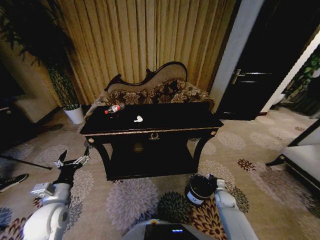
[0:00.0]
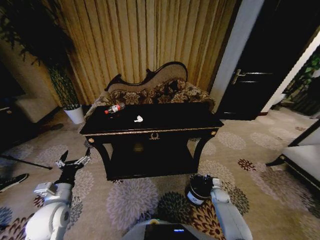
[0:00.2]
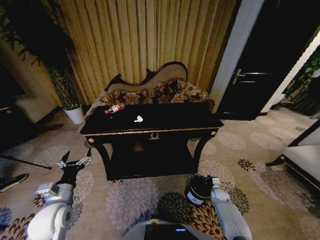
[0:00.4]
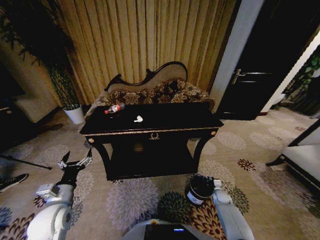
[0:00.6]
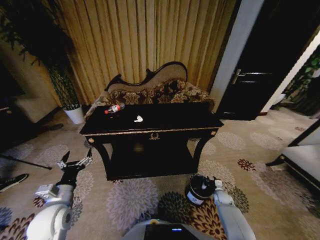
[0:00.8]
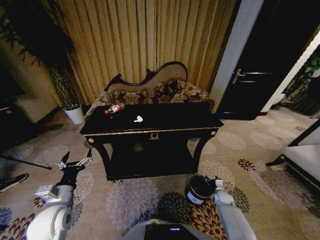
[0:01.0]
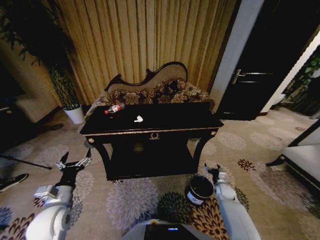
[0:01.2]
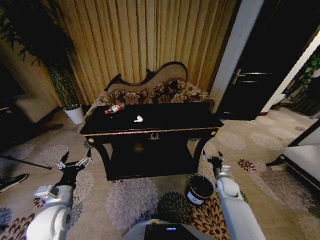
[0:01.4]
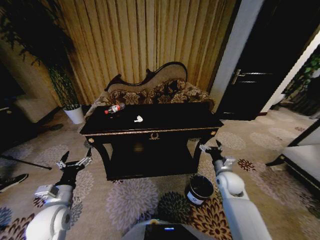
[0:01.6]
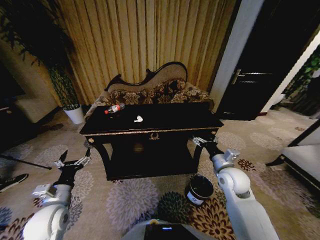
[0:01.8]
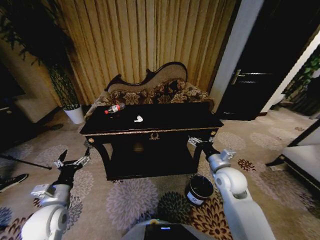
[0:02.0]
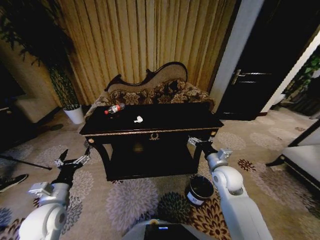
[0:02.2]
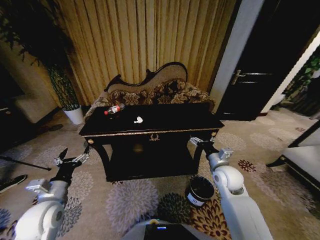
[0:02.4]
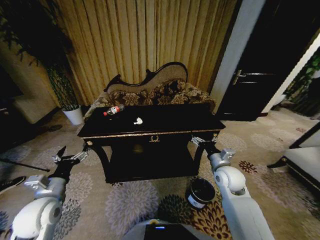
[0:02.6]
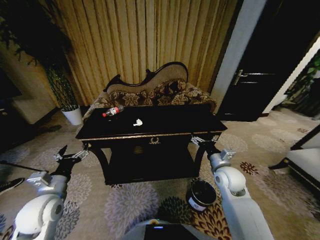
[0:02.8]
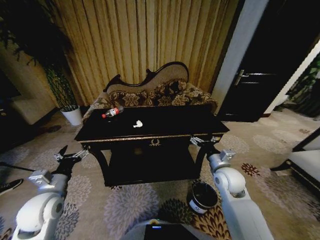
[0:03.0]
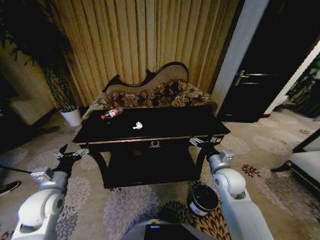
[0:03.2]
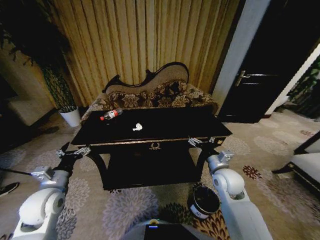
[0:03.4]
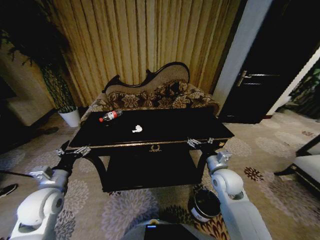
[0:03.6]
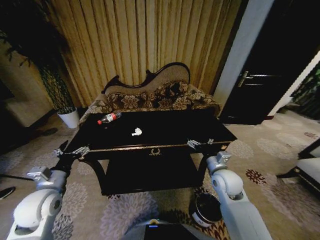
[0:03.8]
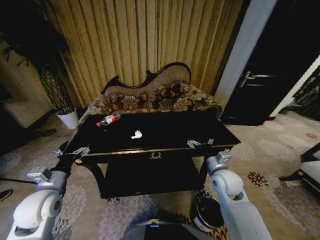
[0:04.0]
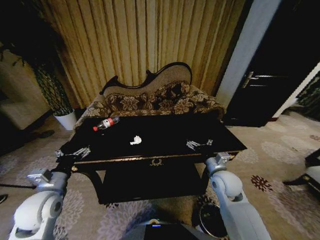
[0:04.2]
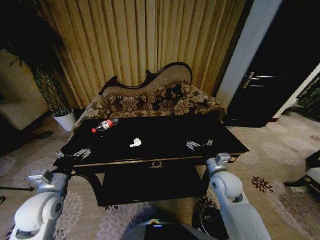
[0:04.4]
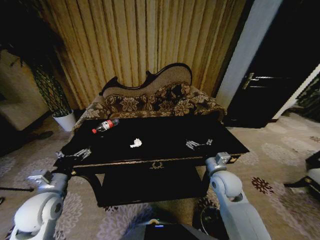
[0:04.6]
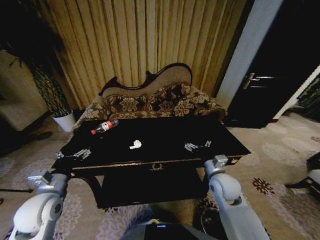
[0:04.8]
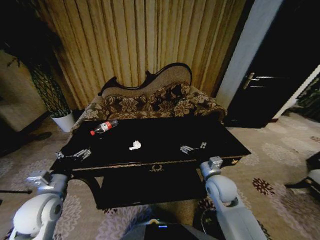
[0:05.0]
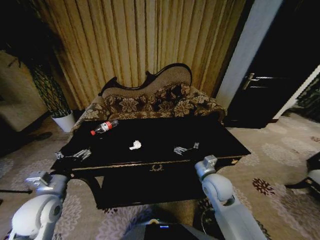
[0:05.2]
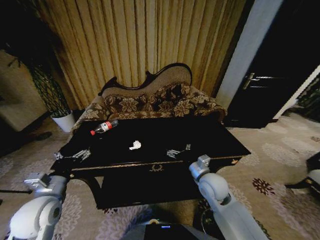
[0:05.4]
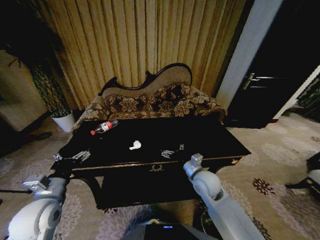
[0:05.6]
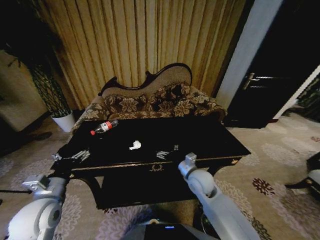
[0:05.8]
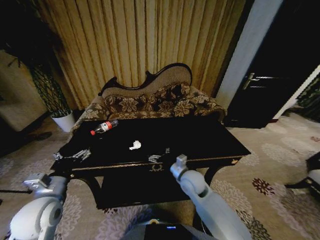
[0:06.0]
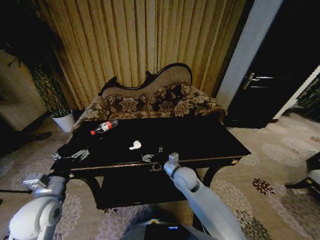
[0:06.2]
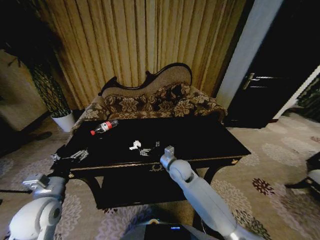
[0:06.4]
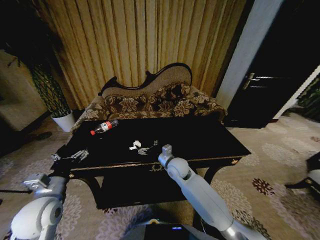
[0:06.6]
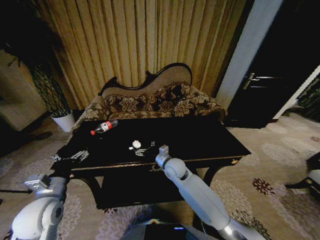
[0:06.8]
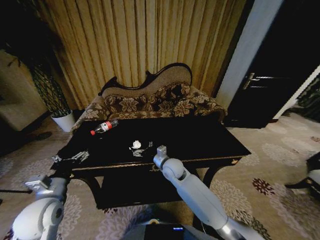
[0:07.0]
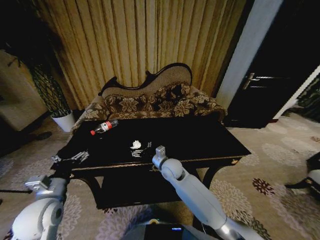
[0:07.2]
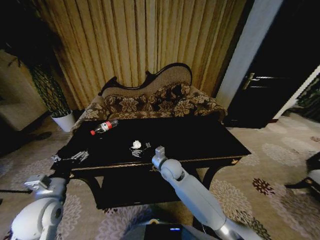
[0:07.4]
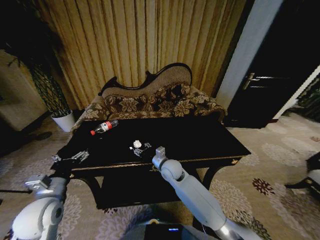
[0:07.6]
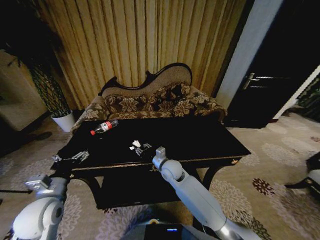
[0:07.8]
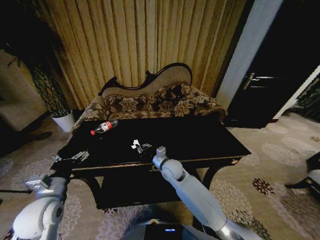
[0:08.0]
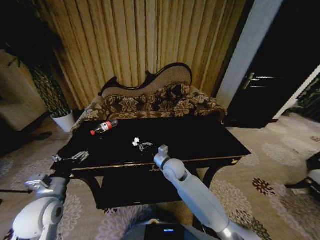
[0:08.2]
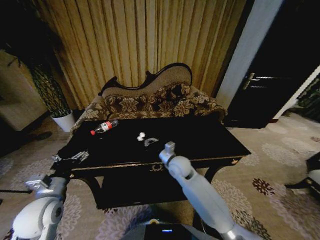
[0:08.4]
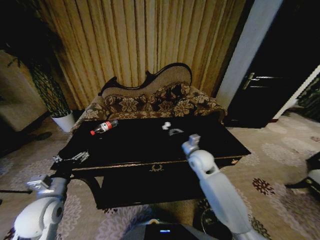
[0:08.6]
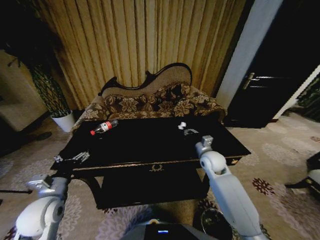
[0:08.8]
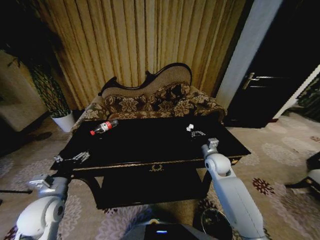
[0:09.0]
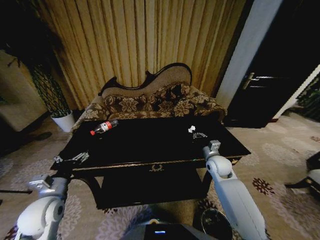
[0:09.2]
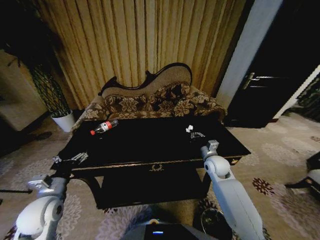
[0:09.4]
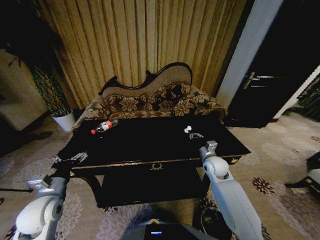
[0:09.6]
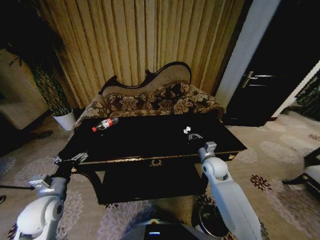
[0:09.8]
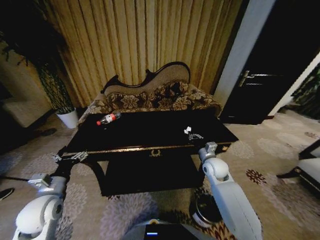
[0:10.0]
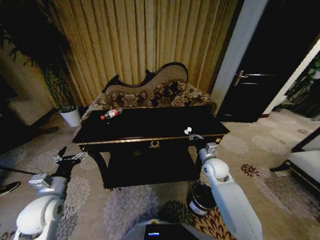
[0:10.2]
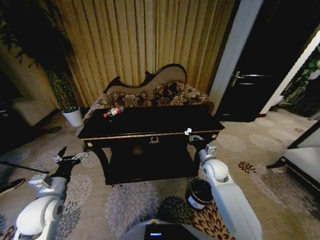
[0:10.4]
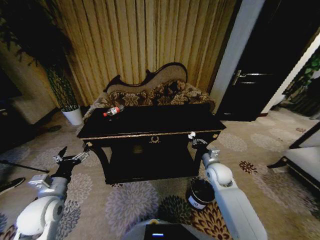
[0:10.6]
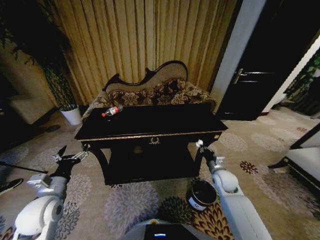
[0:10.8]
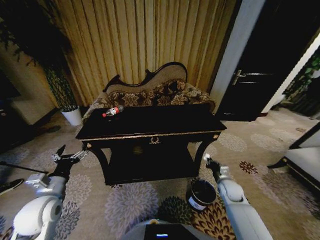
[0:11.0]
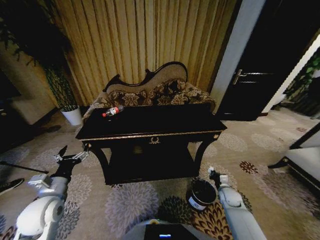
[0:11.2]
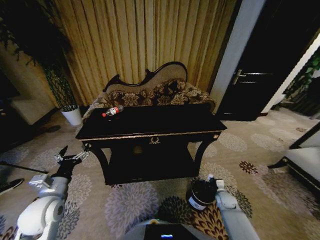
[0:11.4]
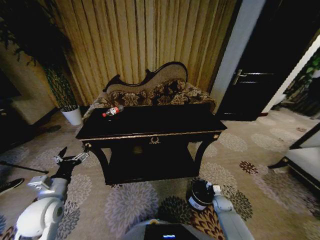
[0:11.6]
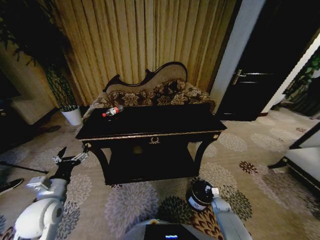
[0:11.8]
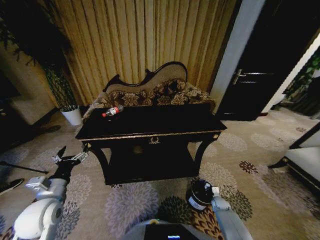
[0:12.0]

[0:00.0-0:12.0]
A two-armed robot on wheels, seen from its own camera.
Task of the whole recording: Move to the front of the table and place the trash on the table into the trash bin.
0:00.0 to 0:01.6: The right gripper goes about 20 cm upward, and opens its fingers.
0:01.6 to 0:03.0: The left gripper shifts by approximately 5 cm. Meanwhile the right gripper is displaced upward by about 5 cm.
0:04.4 to 0:06.0: The right gripper heads to the left, covering about 10 cm.
0:06.0 to 0:07.6: The right gripper shifts approximately 10 cm to the left and forward.
0:07.6 to 0:09.0: The right gripper moves to the right, roughly 20 cm, and closes its fingers.
0:10.4 to 0:12.0: The right gripper moves downward and to the right, some 35 cm.

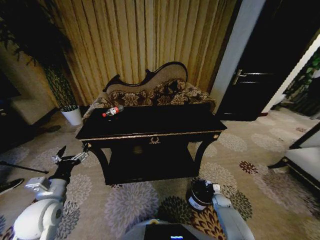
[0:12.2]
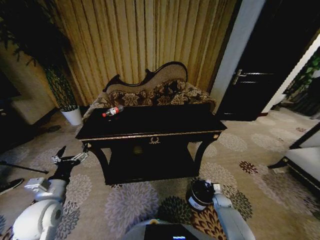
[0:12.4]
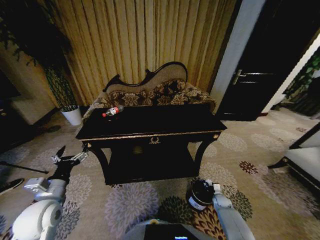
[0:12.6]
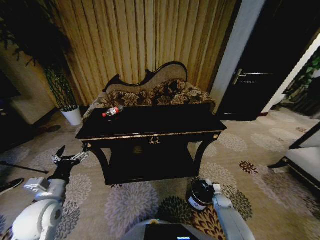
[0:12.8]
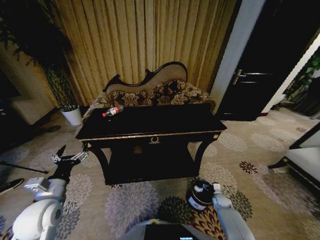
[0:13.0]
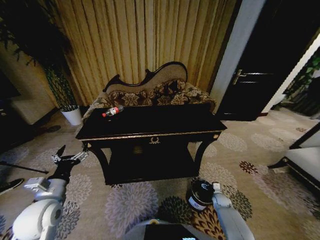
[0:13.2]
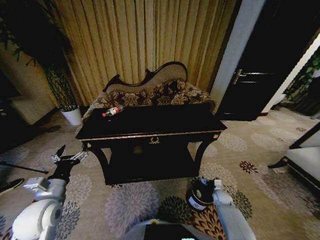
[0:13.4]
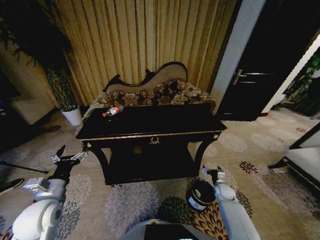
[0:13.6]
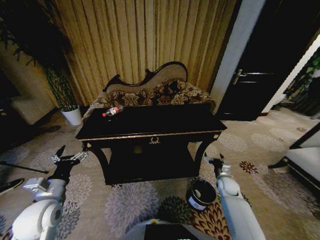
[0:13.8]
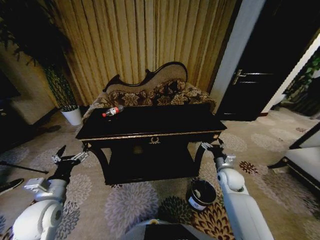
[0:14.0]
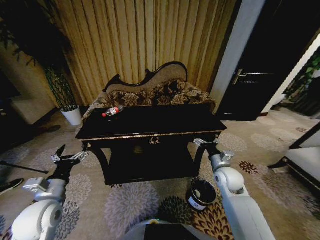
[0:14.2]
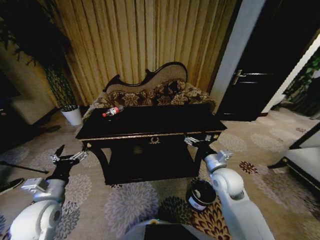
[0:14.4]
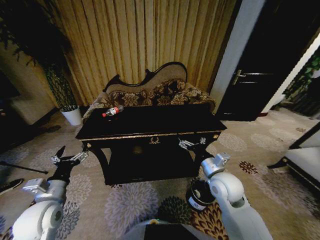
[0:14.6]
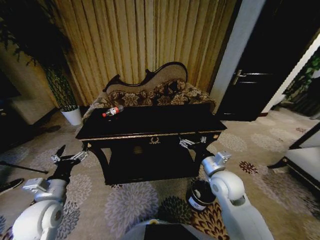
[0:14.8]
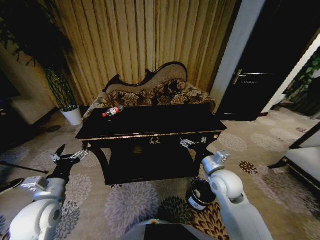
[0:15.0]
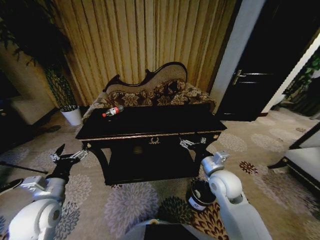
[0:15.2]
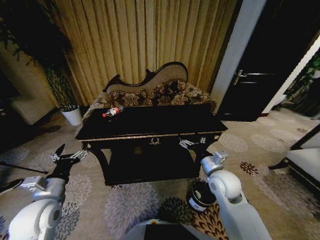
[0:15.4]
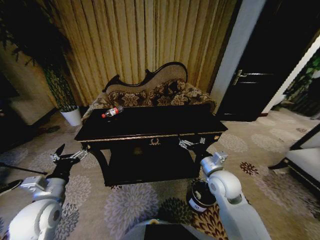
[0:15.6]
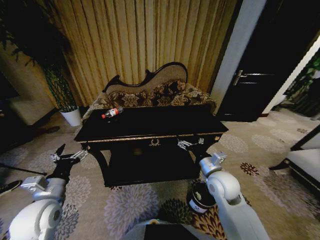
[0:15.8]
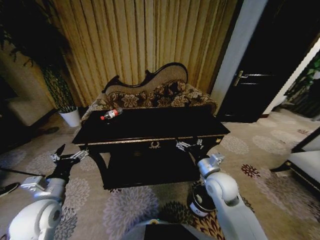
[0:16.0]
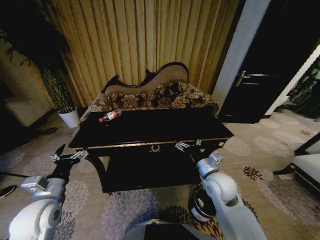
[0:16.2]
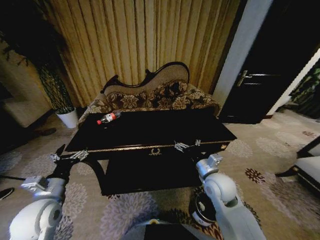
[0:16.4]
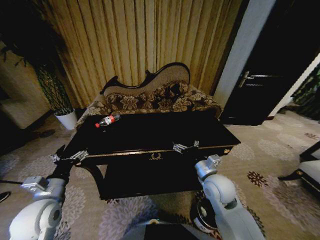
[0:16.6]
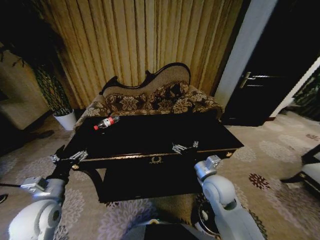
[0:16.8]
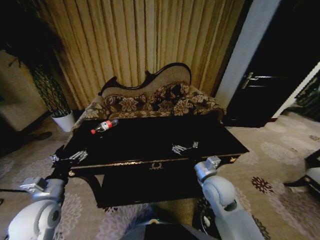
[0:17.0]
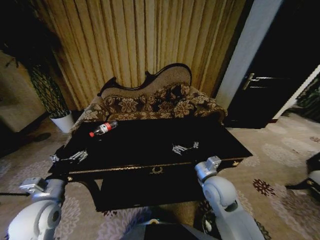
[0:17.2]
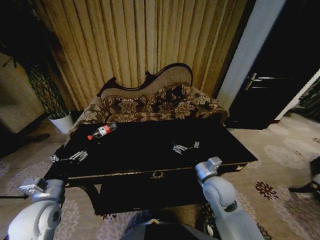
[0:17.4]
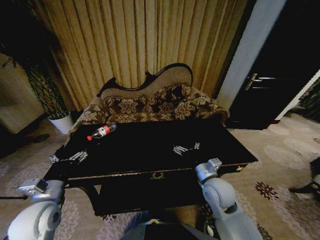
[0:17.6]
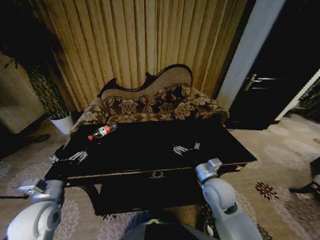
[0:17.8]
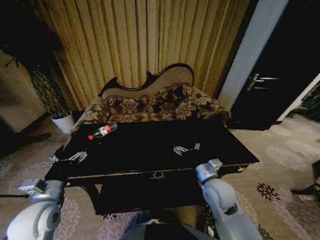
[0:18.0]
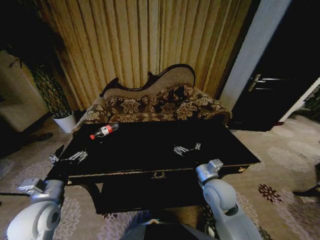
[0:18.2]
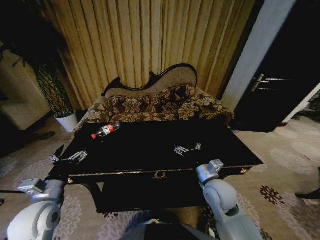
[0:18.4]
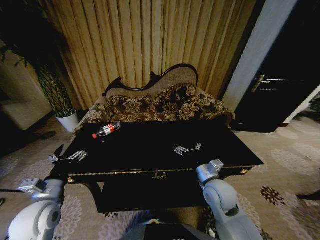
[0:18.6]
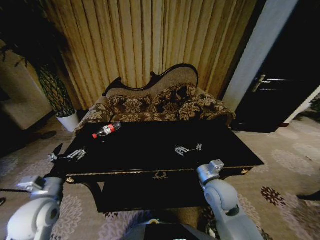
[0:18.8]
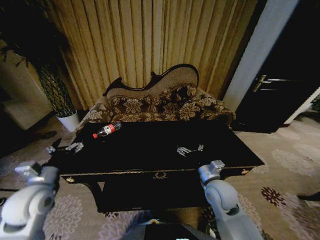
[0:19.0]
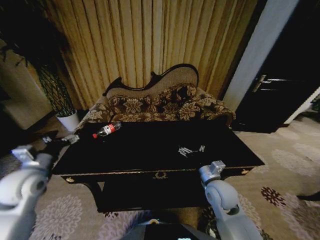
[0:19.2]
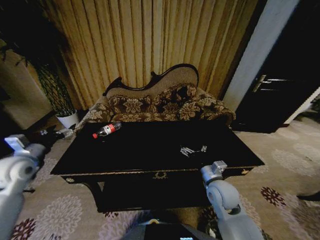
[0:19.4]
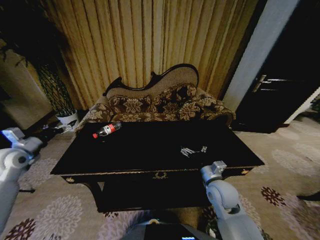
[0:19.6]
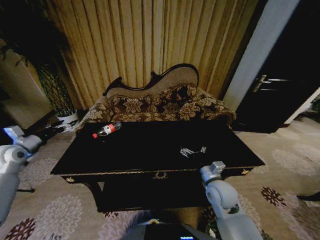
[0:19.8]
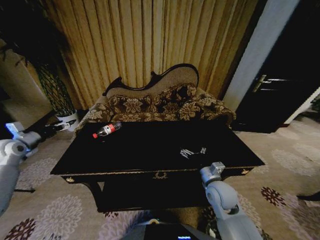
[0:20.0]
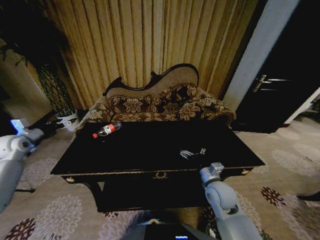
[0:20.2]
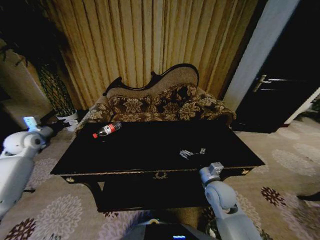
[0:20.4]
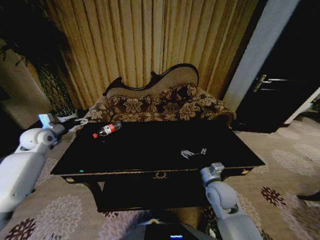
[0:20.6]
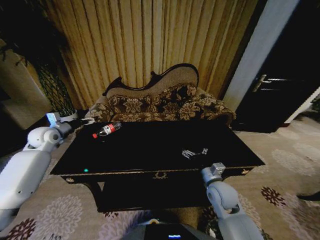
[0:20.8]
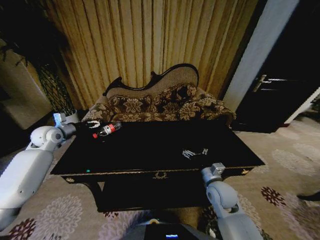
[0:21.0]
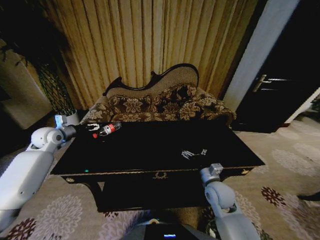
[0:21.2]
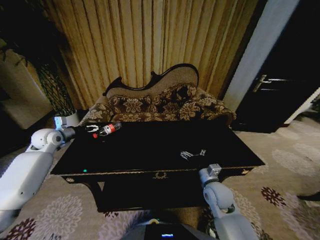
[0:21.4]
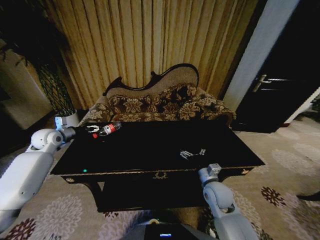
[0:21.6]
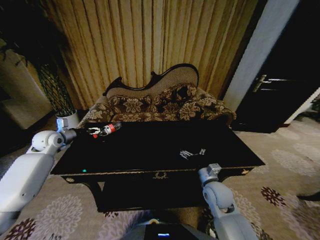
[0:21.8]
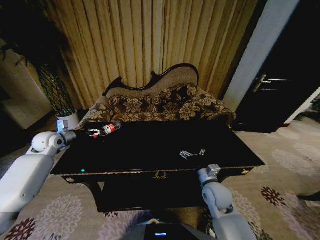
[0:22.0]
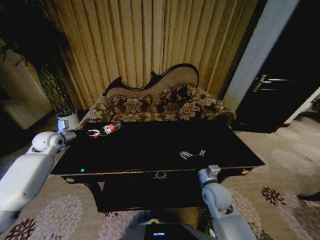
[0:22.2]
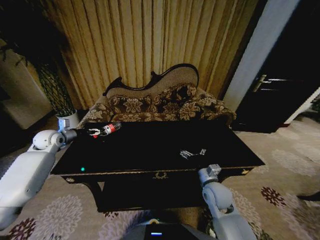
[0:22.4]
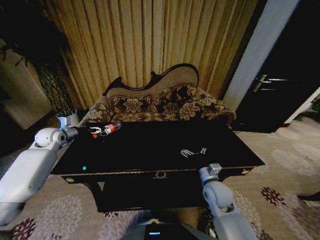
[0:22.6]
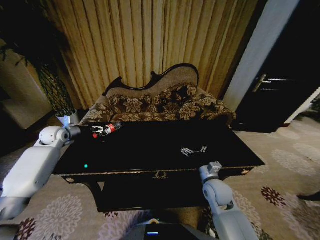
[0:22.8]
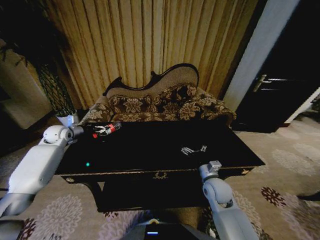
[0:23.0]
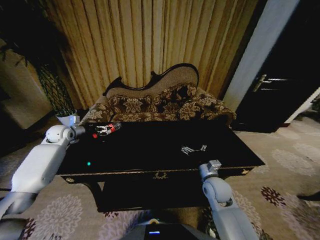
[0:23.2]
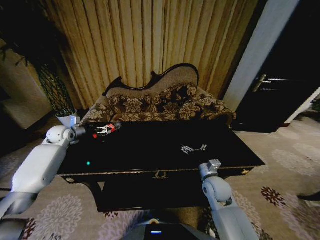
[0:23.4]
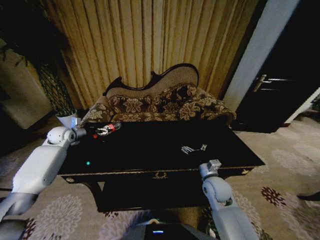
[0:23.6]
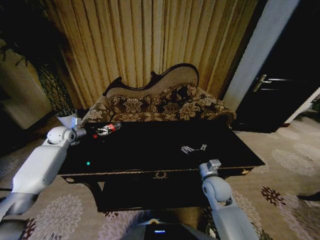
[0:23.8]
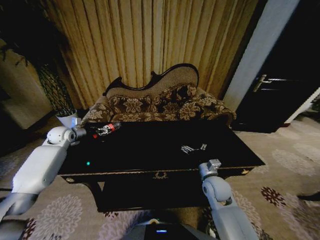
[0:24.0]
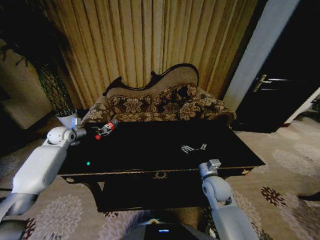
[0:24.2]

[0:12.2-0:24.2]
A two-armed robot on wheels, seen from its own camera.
Task of the whole recording: Move to the front of the table and place the trash on the table into the trash bin.
0:12.2 to 0:13.8: The right gripper travels upward by roughly 15 cm, and opens.
0:13.8 to 0:15.2: The right gripper is displaced upward and to the left by approximately 25 cm.
0:18.2 to 0:19.8: The left gripper goes approximately 25 cm to the left and forward.
0:19.8 to 0:21.2: The left gripper goes about 15 cm to the right and forward.
0:21.2 to 0:22.6: The grippers move only a little.
0:22.6 to 0:24.2: The left gripper closes.
